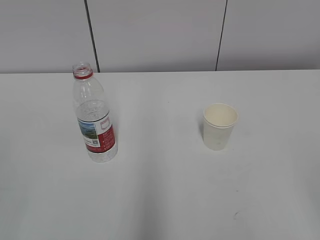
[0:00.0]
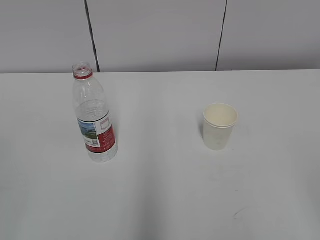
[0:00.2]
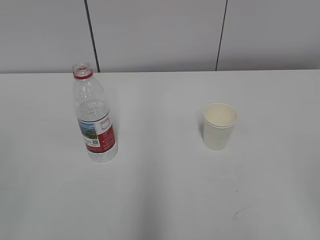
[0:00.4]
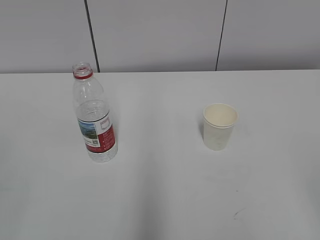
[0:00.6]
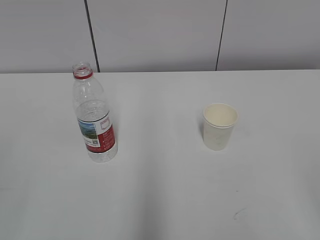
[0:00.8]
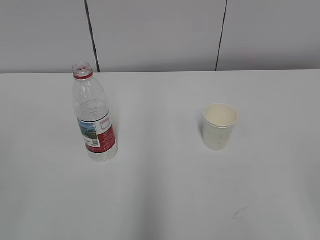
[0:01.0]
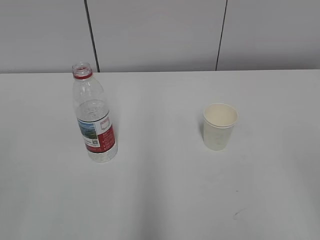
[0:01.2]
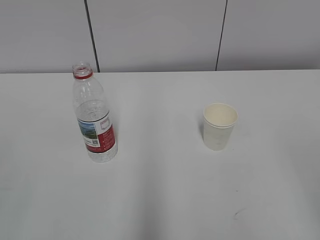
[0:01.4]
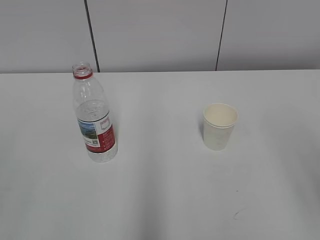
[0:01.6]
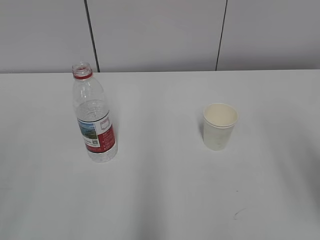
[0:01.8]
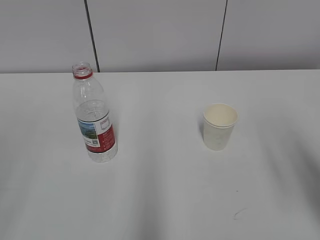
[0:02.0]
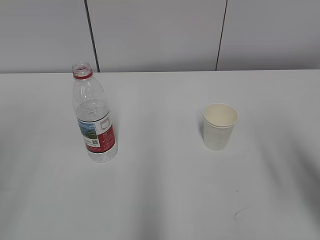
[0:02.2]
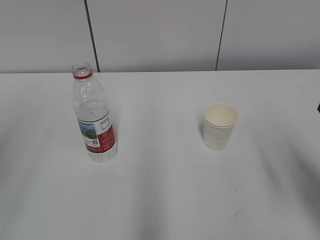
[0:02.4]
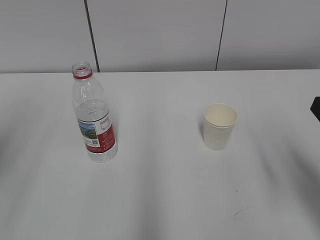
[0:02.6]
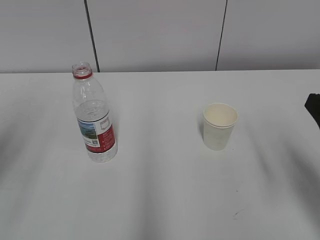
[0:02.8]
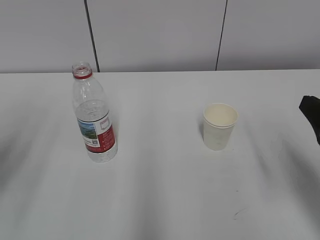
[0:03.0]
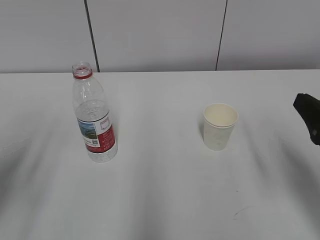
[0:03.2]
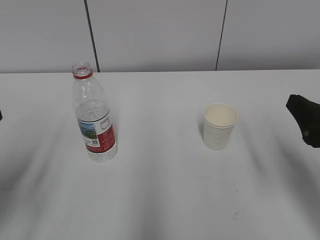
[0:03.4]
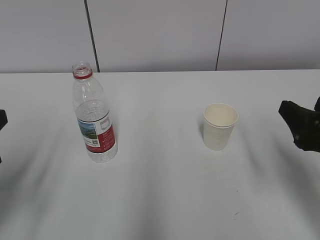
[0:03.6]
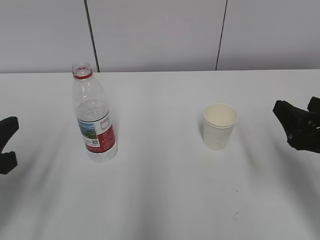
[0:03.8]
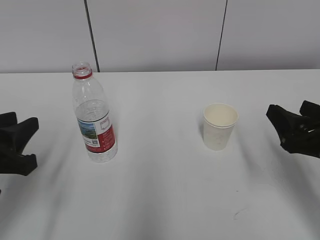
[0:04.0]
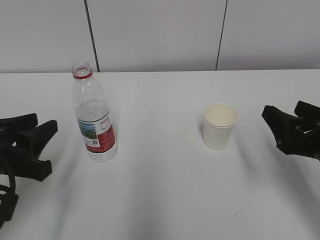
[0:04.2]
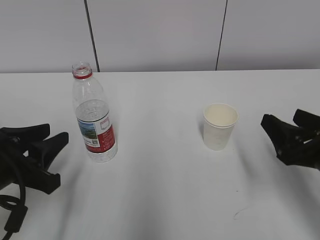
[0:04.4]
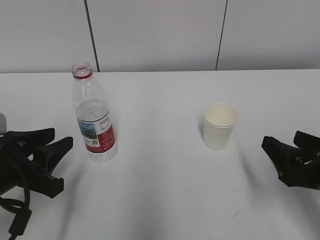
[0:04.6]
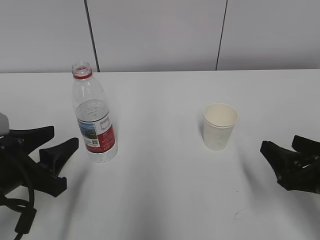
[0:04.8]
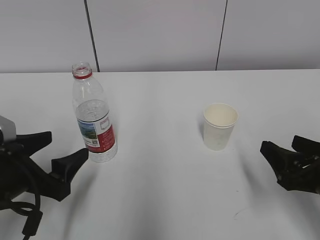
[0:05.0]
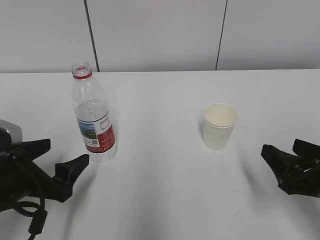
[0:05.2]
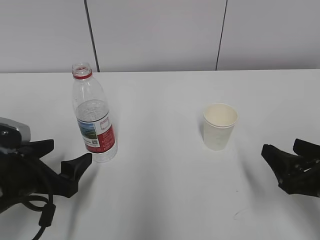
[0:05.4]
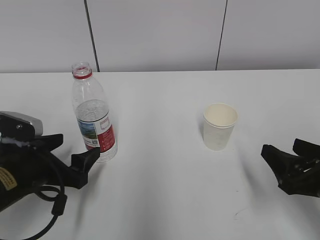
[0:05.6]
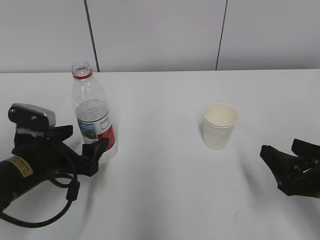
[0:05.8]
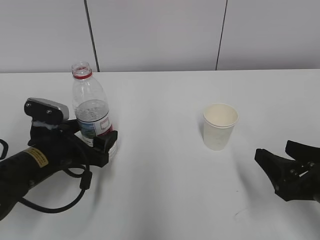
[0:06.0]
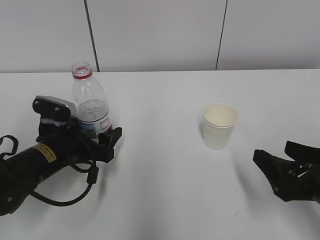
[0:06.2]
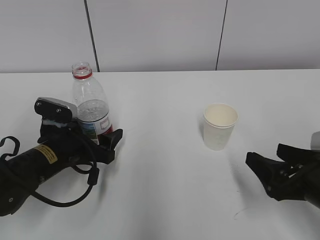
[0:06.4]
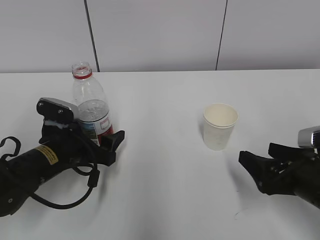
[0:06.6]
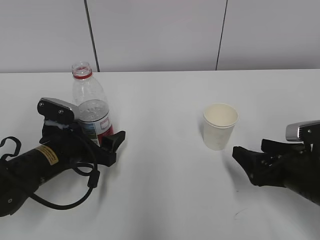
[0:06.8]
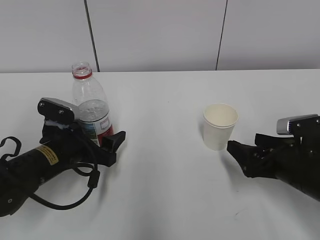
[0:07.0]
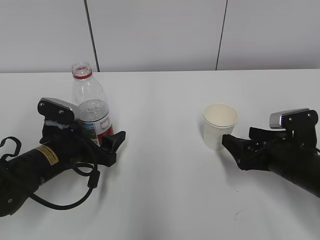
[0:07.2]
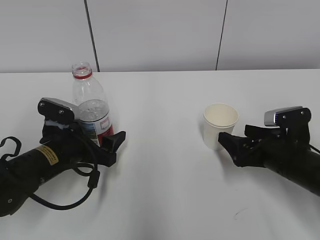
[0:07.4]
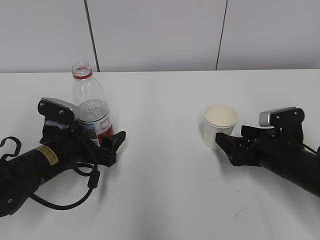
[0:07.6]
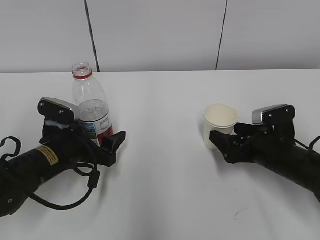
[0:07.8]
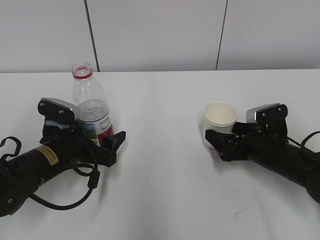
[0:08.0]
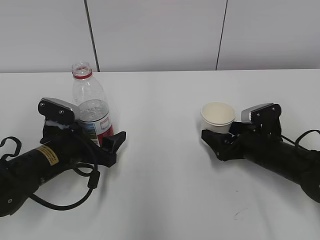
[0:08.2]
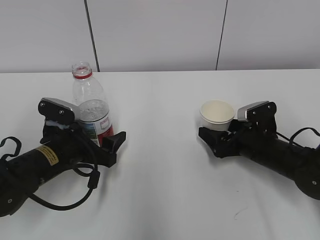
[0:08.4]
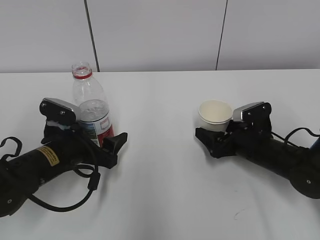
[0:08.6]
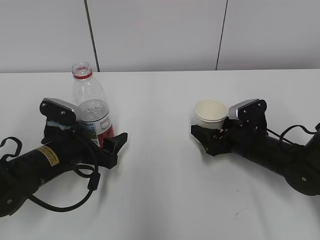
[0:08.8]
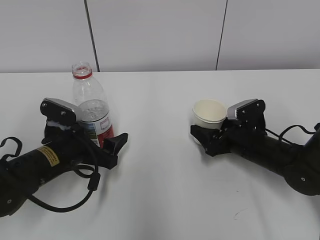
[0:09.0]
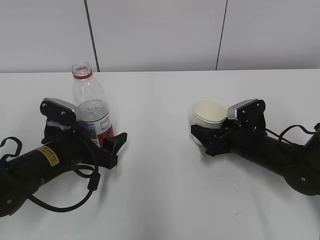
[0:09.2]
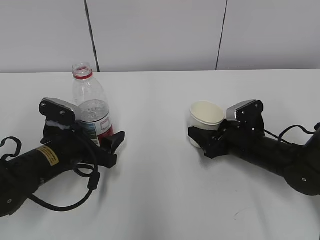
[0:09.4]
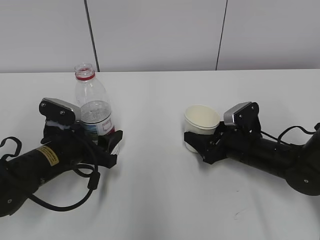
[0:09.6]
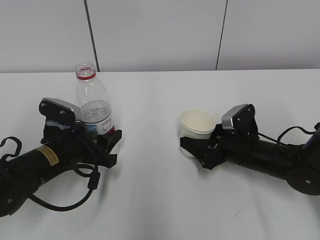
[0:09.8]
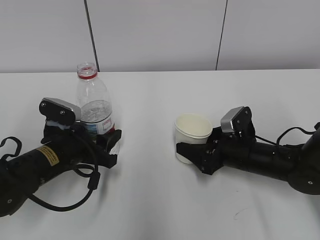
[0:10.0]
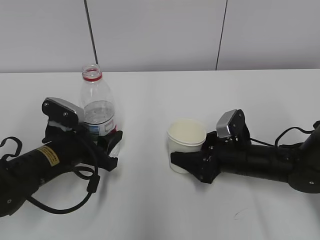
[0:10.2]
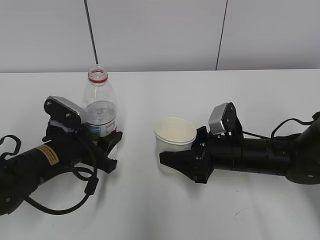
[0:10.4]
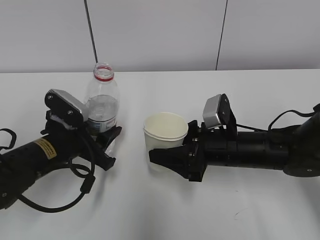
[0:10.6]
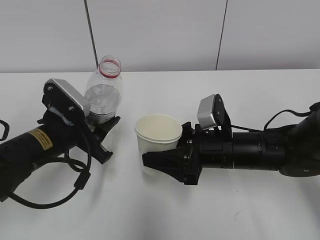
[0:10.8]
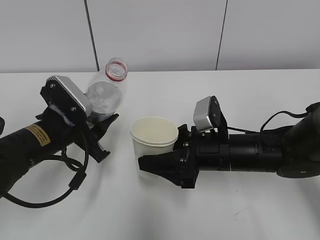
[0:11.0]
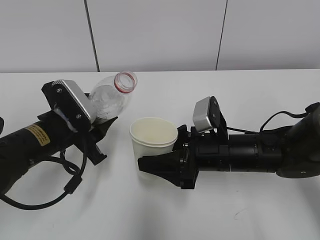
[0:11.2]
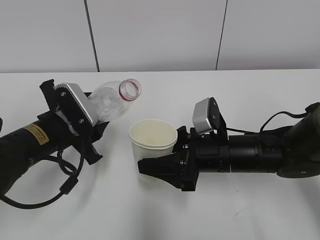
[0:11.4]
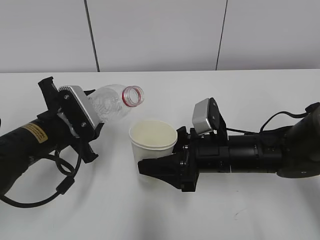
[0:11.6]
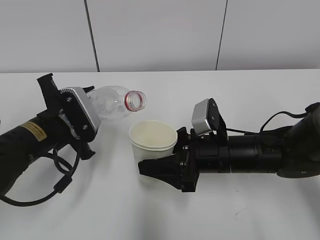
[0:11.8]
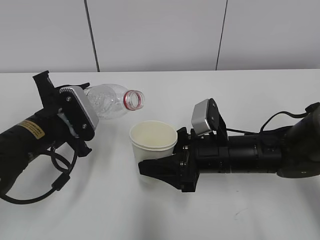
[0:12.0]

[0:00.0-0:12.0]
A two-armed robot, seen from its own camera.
Step, 0:00.0 to 0:07.6: Grab the paper cup with the right hand.
0:01.6 to 0:03.0: The left gripper goes roughly 15 cm forward. Meanwhile the right gripper shifts roughly 15 cm forward and downward.
0:03.0 to 0:04.4: The left gripper is displaced downward and to the right by approximately 15 cm, while the right gripper goes roughly 5 cm downward.
0:04.4 to 0:06.0: The left gripper is displaced forward and downward by some 10 cm, and opens up.
0:06.0 to 0:07.6: The right gripper heads forward and downward, covering some 10 cm, and opens.
0:07.6 to 0:09.0: The right gripper is displaced forward by roughly 5 cm, and closes.
0:09.0 to 0:10.4: The right gripper goes about 5 cm to the left; the left gripper closes up.
0:10.4 to 0:12.0: The left gripper ends up some 5 cm from where it was.

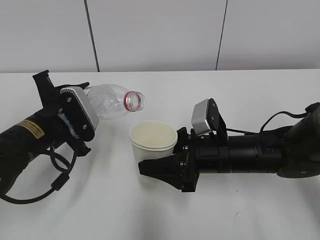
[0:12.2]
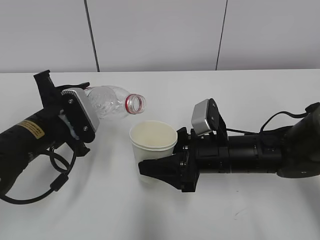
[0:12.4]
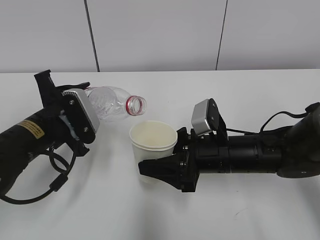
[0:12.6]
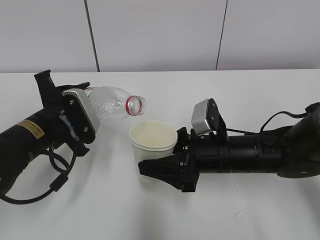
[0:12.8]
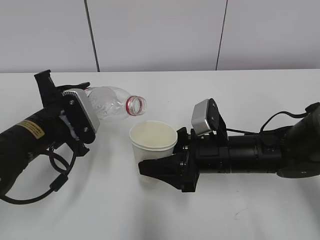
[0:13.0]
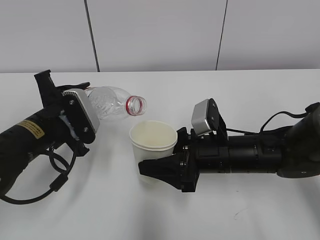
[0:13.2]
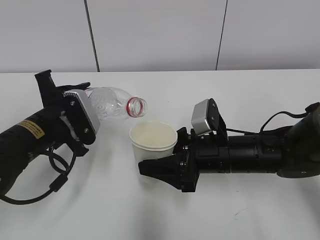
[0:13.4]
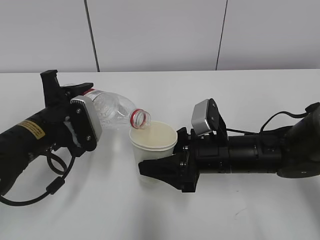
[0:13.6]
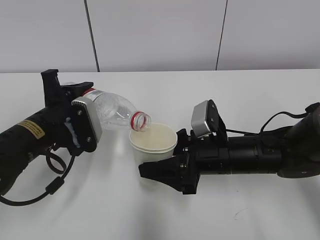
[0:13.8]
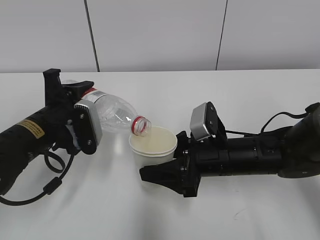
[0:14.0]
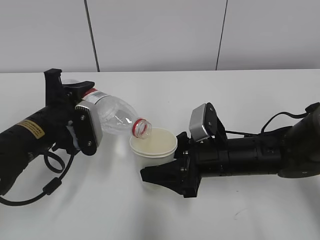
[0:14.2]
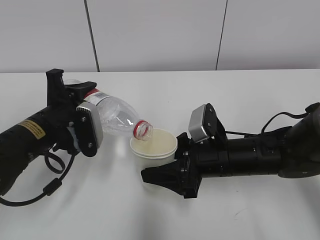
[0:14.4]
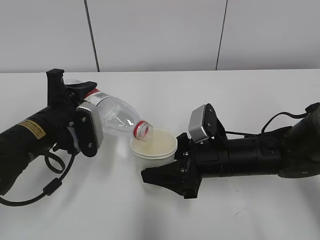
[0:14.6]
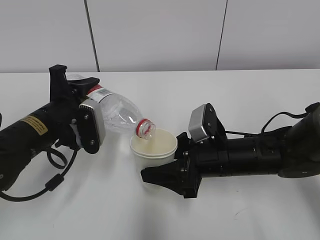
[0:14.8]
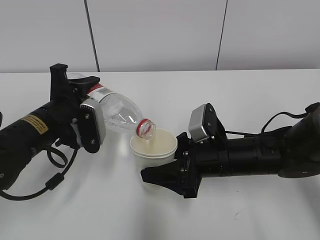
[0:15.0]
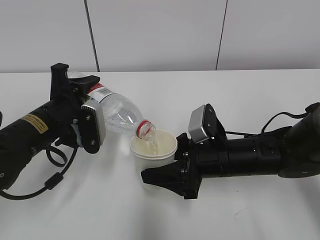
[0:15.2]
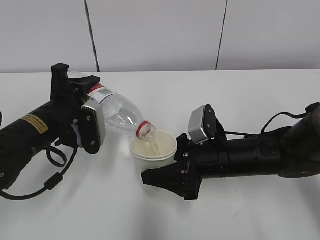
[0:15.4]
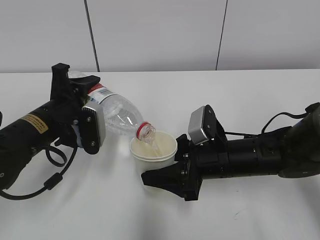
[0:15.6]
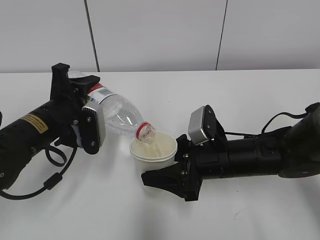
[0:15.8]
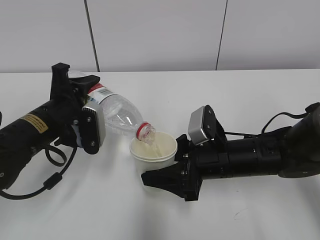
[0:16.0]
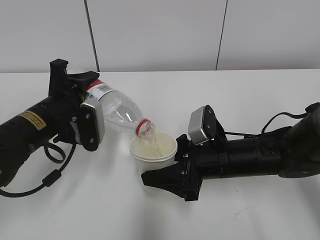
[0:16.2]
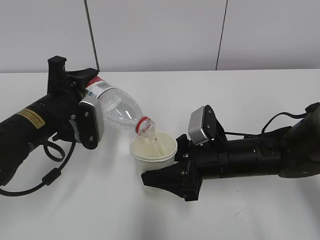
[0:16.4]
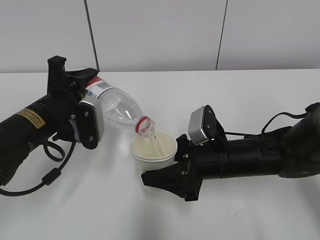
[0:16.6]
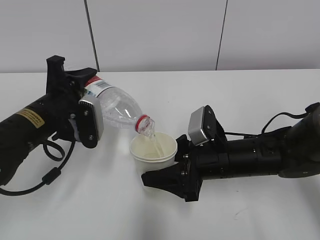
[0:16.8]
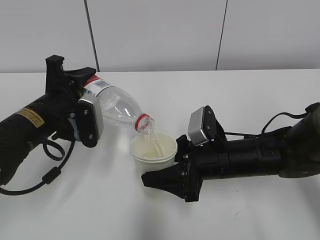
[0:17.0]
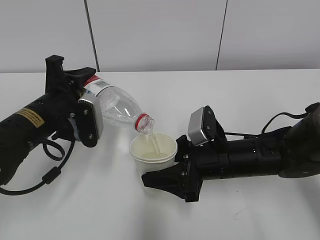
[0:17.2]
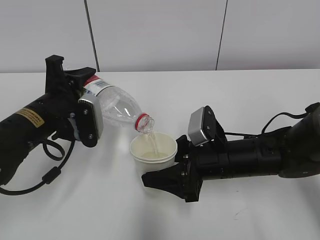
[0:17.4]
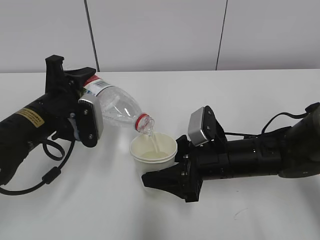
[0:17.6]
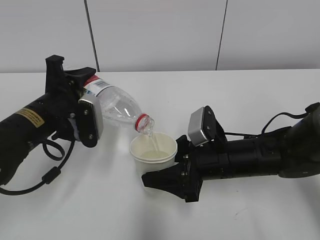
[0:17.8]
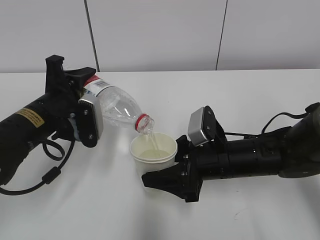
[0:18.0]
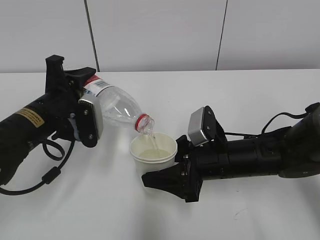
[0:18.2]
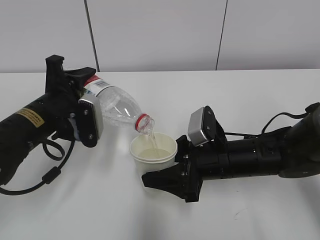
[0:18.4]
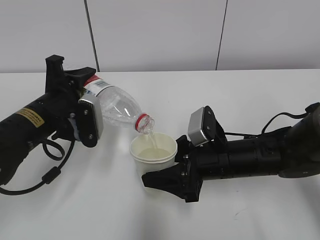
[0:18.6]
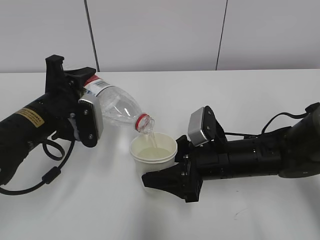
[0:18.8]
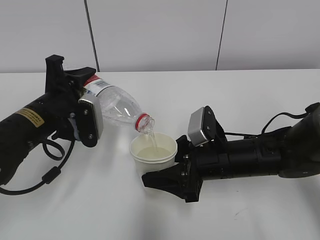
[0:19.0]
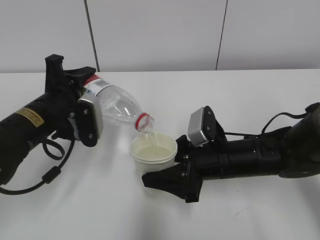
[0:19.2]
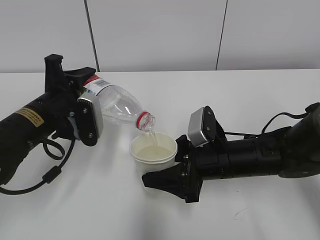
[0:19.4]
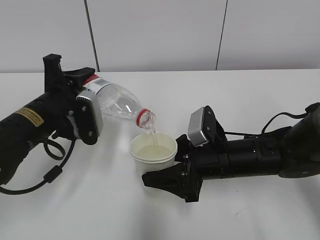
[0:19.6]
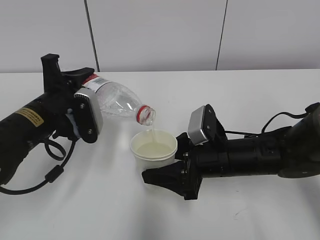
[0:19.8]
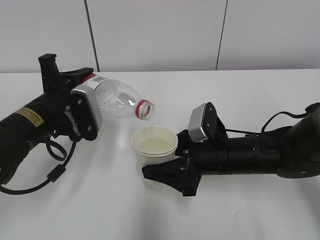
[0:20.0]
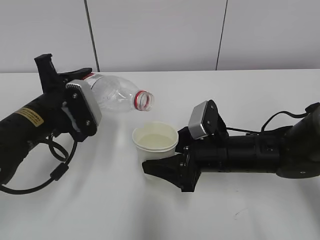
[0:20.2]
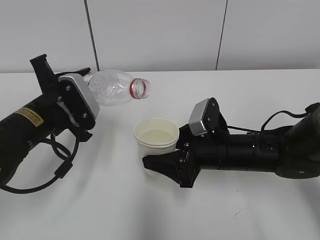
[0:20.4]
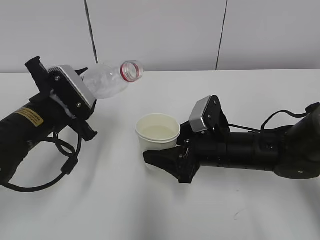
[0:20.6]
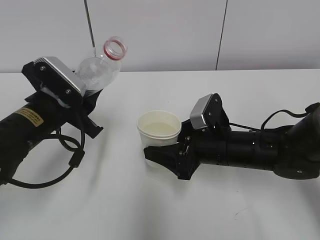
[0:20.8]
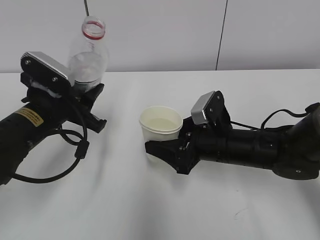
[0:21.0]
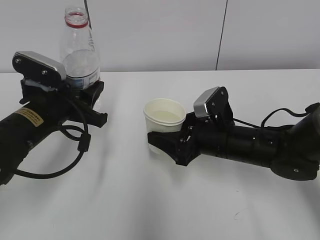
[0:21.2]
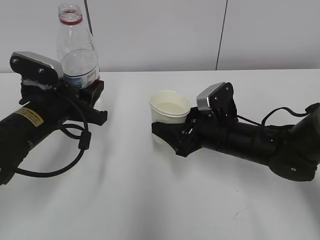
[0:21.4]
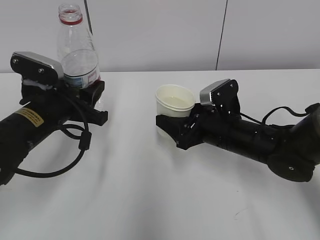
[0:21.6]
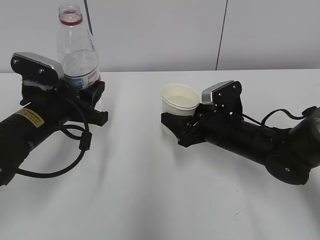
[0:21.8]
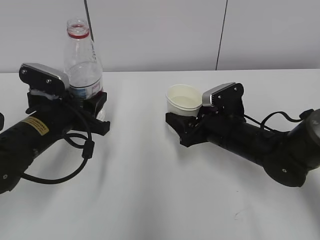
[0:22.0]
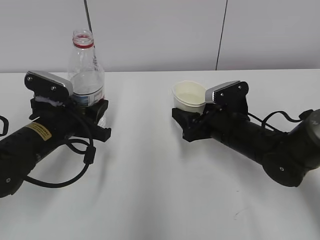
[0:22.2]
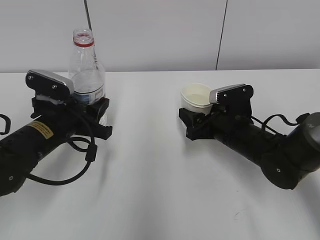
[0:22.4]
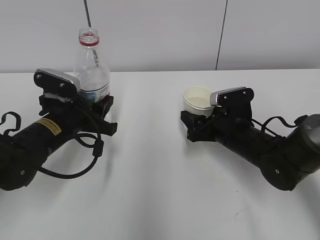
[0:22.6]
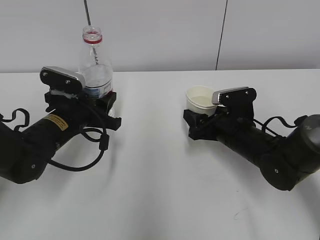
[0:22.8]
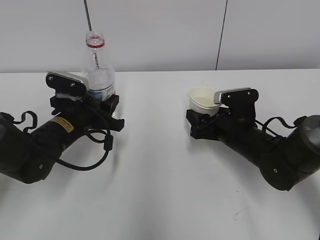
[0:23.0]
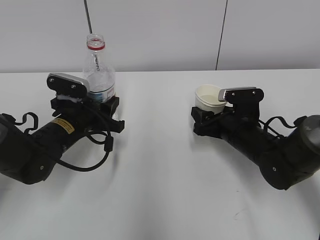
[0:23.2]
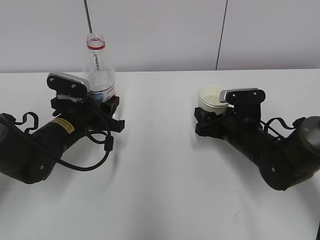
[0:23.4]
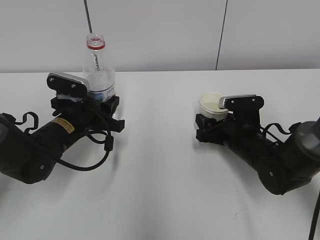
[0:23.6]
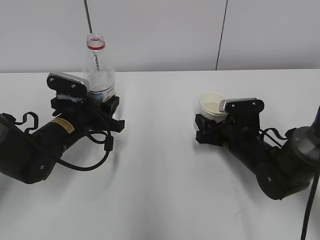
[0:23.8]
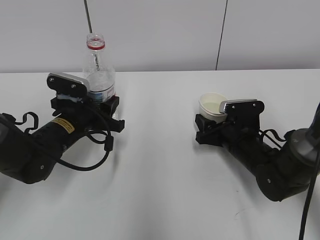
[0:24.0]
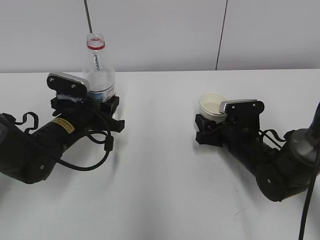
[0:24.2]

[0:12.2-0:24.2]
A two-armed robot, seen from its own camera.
Step, 0:12.2 to 0:16.6: Fill water with the right hand.
Step, 0:12.2 to 0:16.6: Pour water with the left hand.
Step, 0:18.0 to 0:20.4: Place the paper cup with the right hand.
Step, 0:20.6 to 0:22.2: Place the water bottle with the left hand.
0:12.2 to 0:13.8: The grippers stay close to where they were, moving slightly.
0:13.8 to 0:15.2: The grippers move only a little.
0:15.2 to 0:18.2: The two grippers keep their place.
0:18.2 to 0:19.8: The grippers move only a little.
0:21.2 to 0:22.6: The right gripper shifts by about 5 cm.
0:22.6 to 0:24.2: The grippers move only a little.
